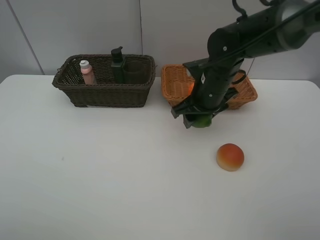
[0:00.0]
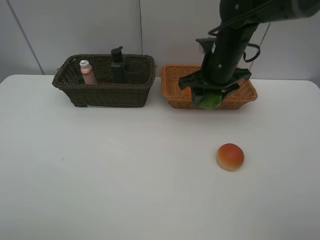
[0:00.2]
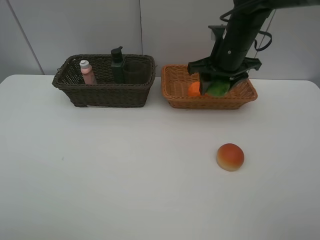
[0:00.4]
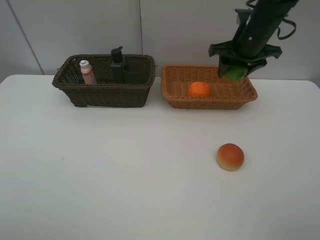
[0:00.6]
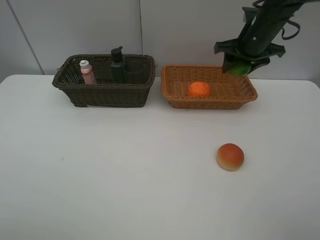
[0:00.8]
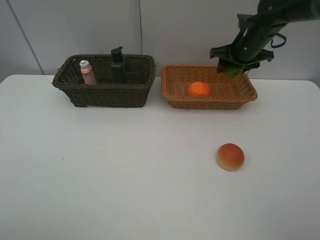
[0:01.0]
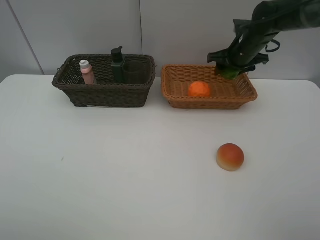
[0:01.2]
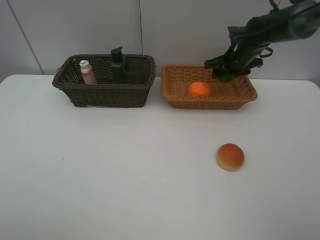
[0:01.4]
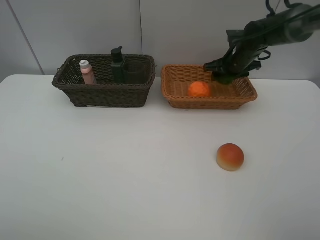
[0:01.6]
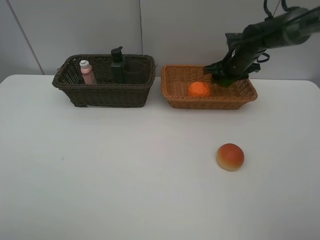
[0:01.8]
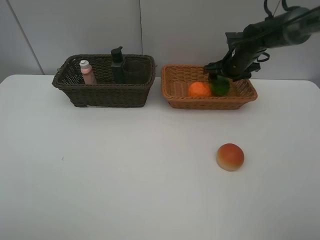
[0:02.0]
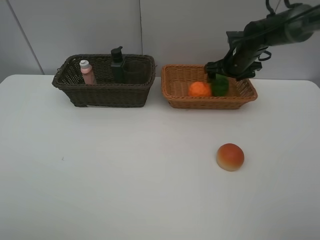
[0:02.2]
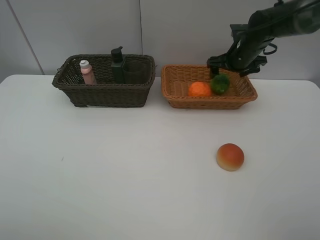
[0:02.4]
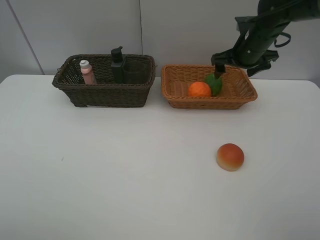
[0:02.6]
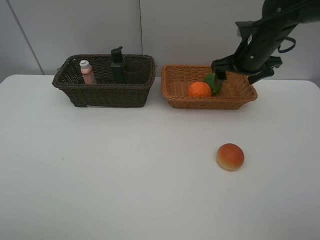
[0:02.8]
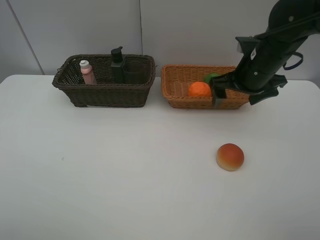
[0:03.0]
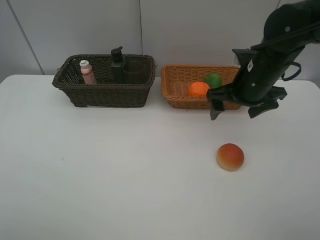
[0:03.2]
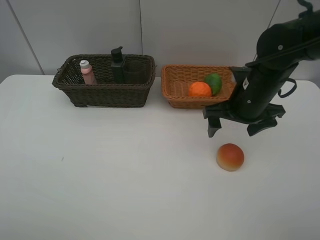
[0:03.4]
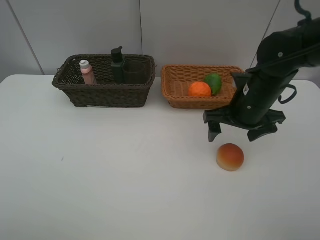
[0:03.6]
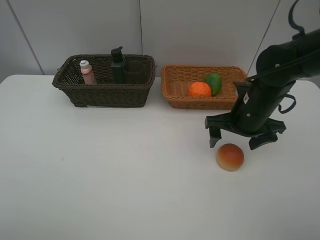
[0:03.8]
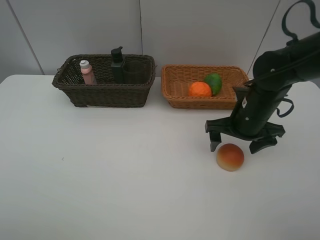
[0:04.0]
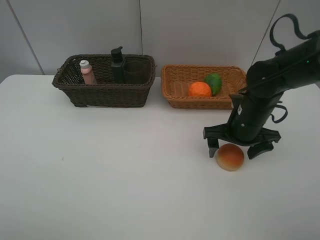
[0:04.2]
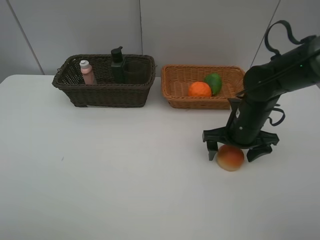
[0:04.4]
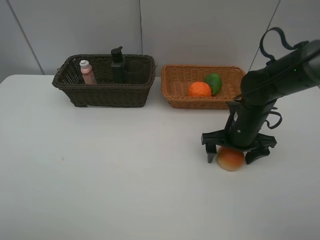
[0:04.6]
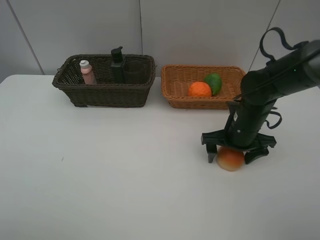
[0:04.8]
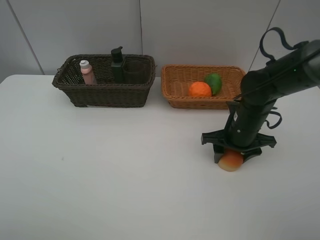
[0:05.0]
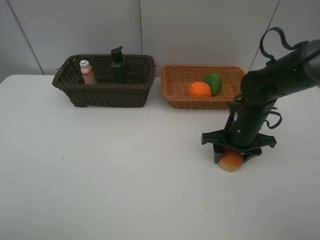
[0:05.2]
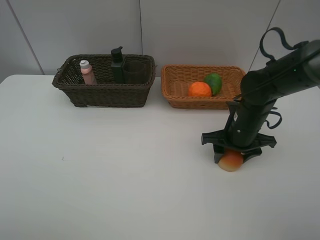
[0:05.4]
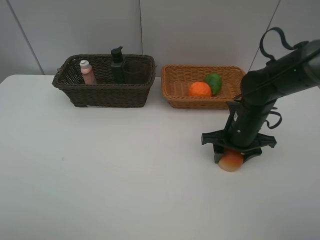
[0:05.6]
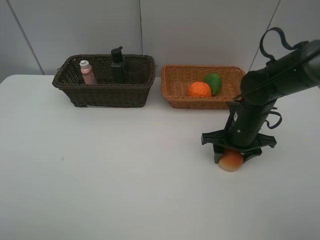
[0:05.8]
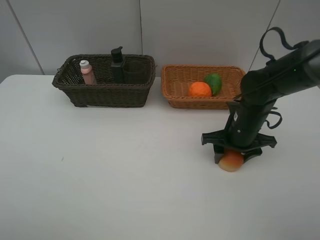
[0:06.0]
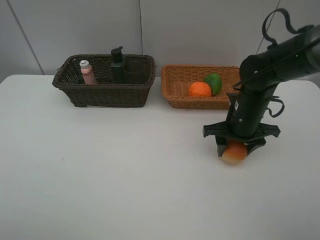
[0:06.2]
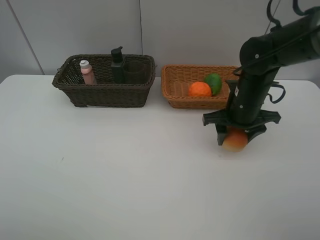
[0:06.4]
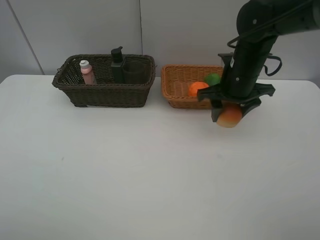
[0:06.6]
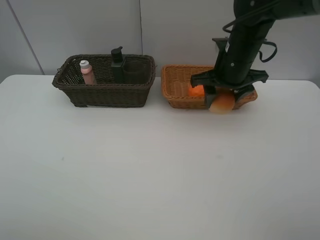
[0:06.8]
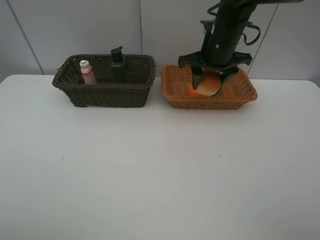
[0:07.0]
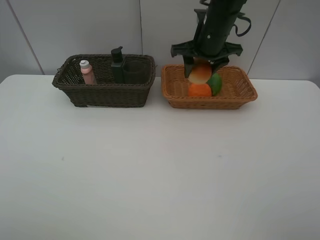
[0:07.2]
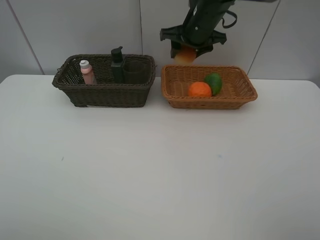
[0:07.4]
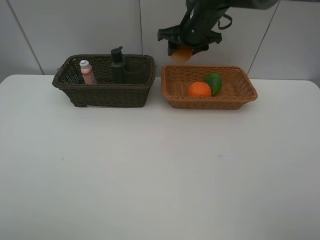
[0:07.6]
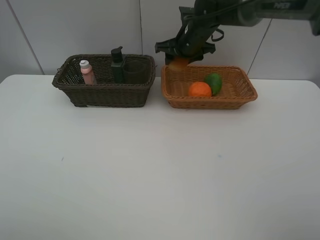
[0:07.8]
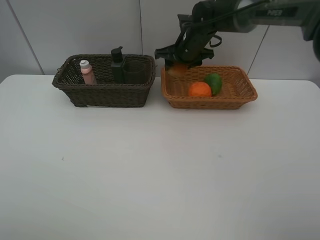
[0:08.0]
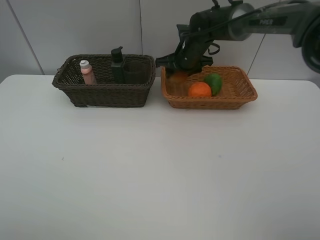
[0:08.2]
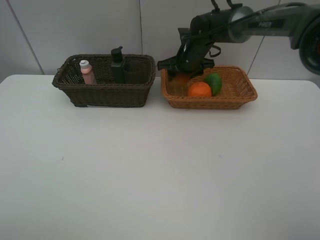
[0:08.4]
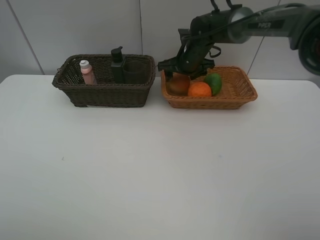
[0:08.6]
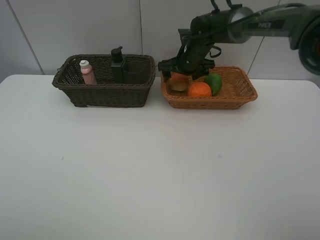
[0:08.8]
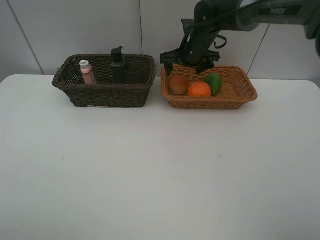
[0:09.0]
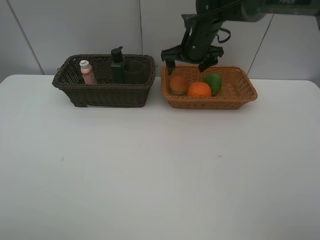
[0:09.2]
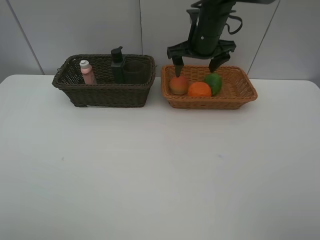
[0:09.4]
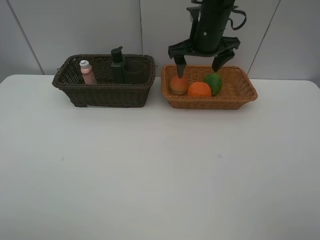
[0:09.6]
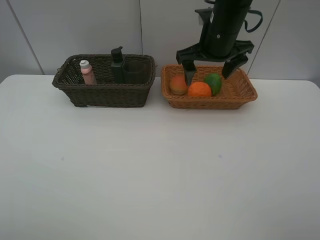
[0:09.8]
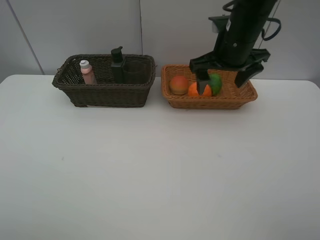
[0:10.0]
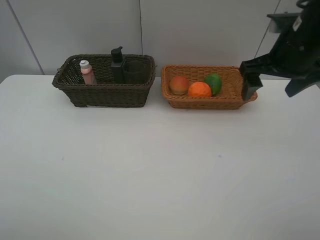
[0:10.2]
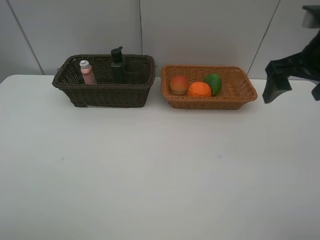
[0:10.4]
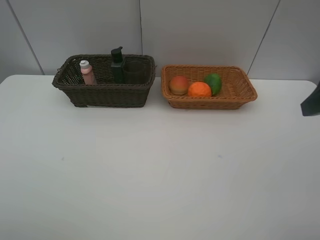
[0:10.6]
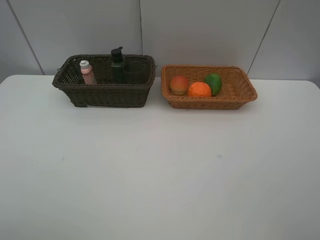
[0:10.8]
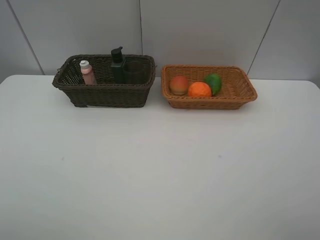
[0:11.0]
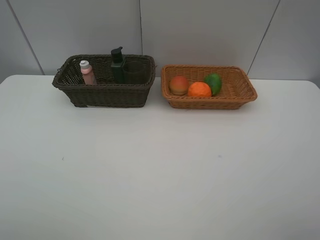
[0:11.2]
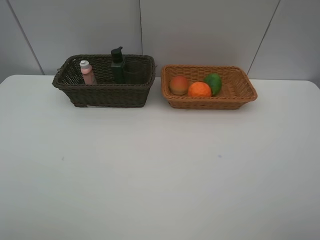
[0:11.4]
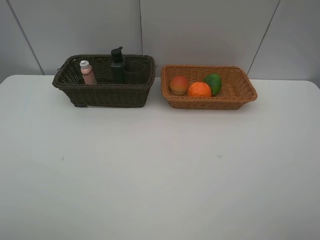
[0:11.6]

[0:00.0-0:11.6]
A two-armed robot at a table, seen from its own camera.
Task of the whole recording: place multiple objects separately in different baskets.
0:00.0 to 0:01.4: The right gripper travels forward and to the right by about 15 cm.
0:01.4 to 0:02.8: The right gripper heads backward and upward, covering roughly 10 cm, and opens.
0:02.8 to 0:04.4: The right gripper shifts approximately 15 cm downward and backward.
0:04.4 to 0:05.8: The right gripper closes its fingers.
0:05.8 to 0:07.2: The right gripper moves upward, forward and to the left, roughly 20 cm.
0:07.2 to 0:08.8: The right gripper shifts approximately 10 cm downward and forward, and opens up.
0:08.8 to 0:10.2: The right gripper goes about 25 cm backward, to the right and upward.
0:10.2 to 0:11.6: The right gripper moves backward, about 30 cm.

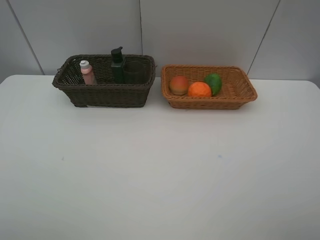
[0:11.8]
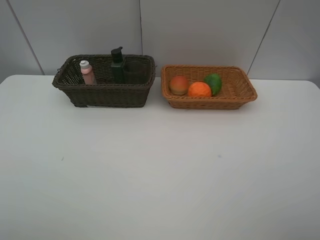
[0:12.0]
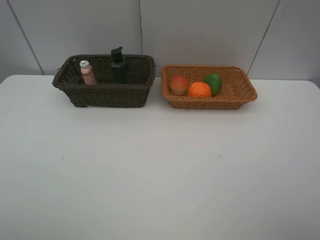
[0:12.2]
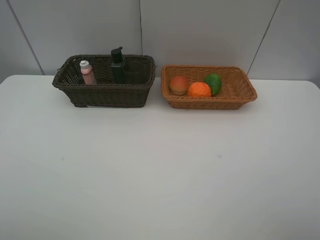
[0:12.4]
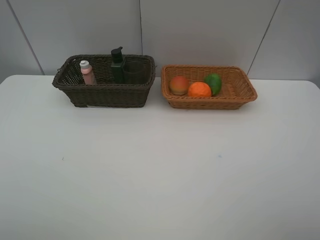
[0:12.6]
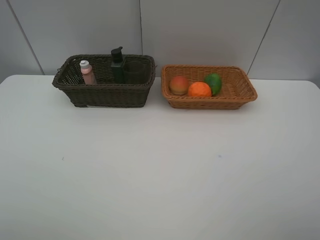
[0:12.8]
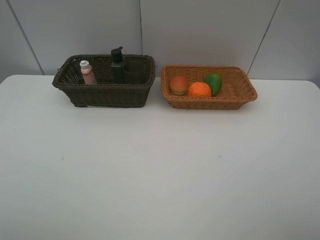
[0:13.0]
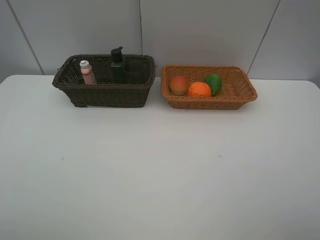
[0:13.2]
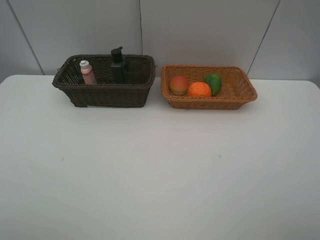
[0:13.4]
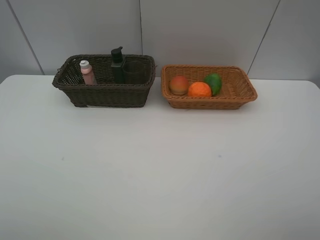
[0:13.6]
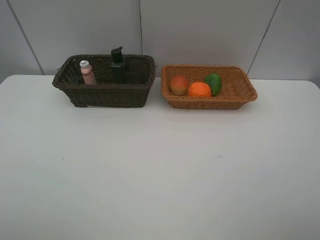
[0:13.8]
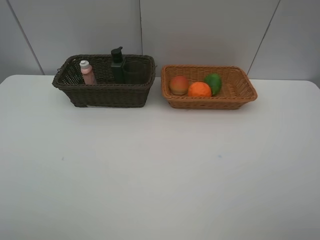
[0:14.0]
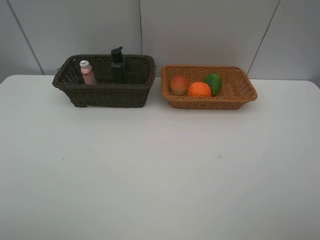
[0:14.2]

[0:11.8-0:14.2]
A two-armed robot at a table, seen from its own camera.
Task of the whole recording: place multiple objects separately in different baskets.
0:13.0 to 0:14.2: Both grippers stay about where they are.
